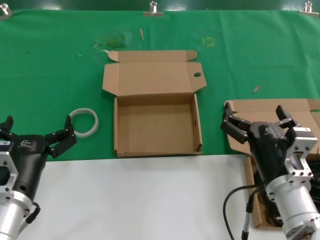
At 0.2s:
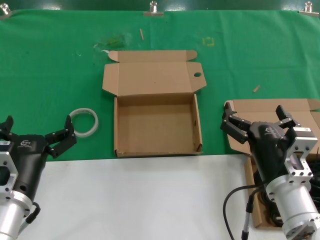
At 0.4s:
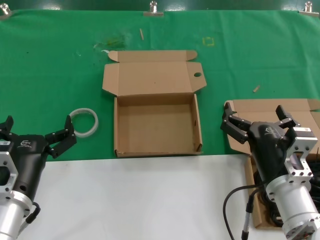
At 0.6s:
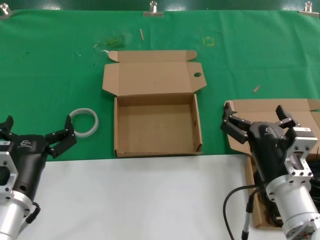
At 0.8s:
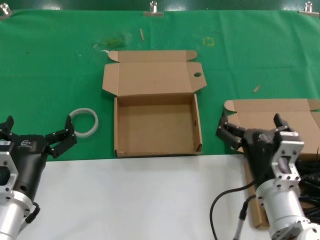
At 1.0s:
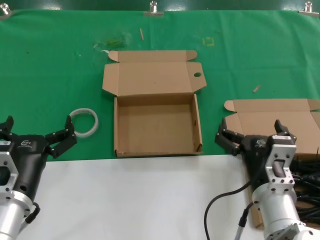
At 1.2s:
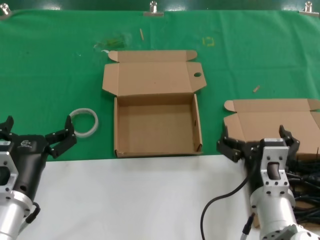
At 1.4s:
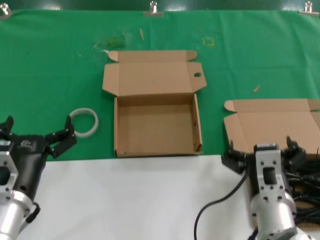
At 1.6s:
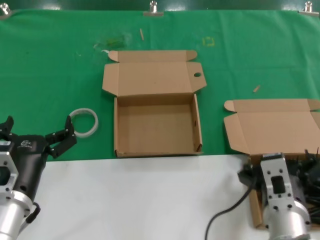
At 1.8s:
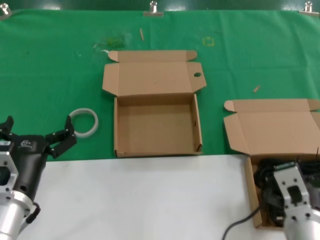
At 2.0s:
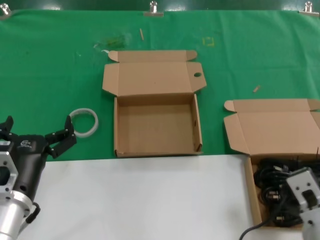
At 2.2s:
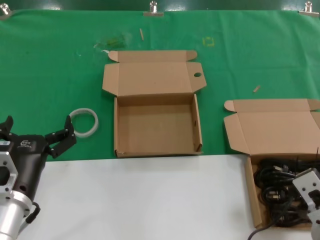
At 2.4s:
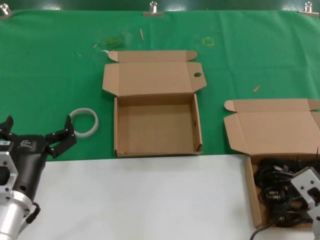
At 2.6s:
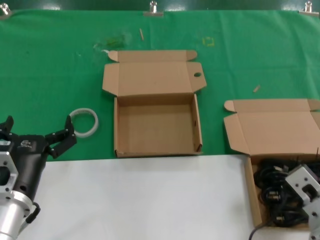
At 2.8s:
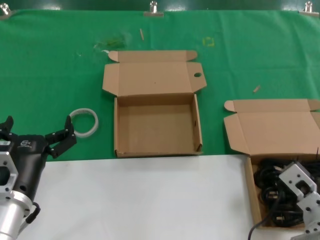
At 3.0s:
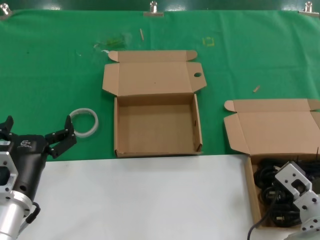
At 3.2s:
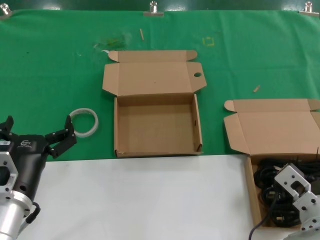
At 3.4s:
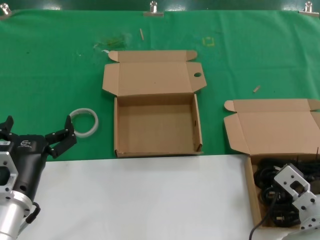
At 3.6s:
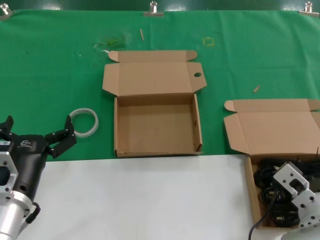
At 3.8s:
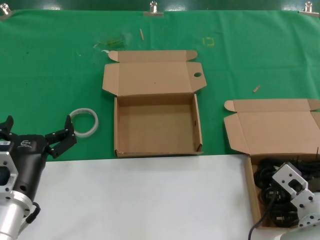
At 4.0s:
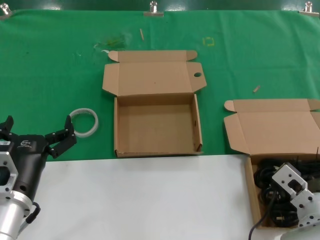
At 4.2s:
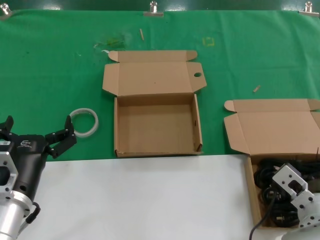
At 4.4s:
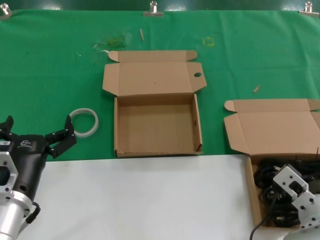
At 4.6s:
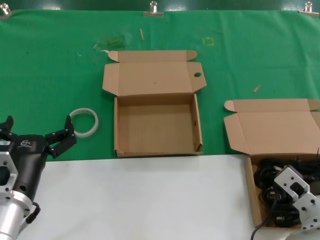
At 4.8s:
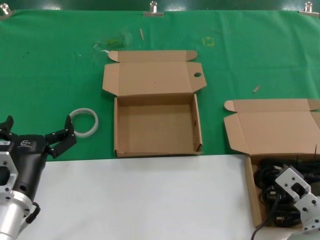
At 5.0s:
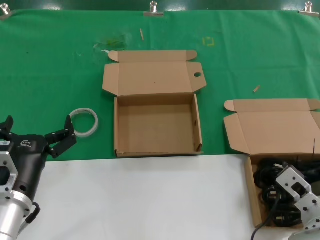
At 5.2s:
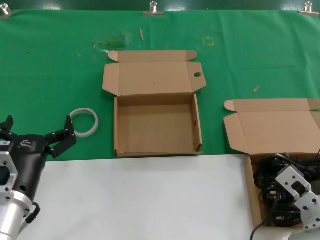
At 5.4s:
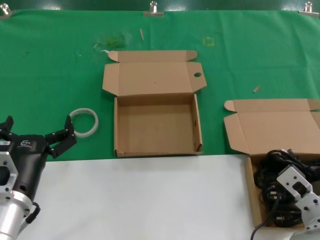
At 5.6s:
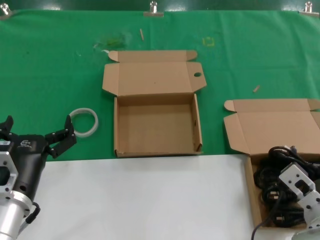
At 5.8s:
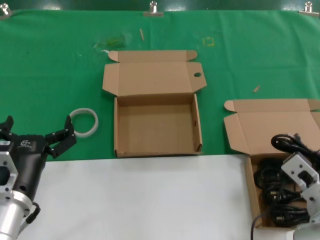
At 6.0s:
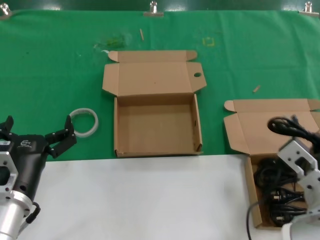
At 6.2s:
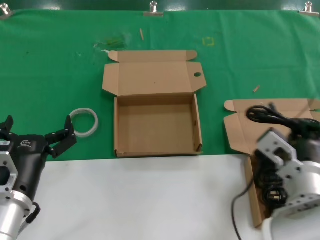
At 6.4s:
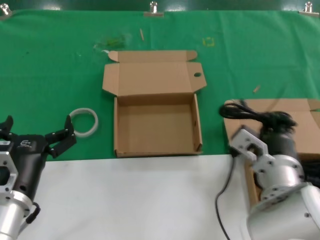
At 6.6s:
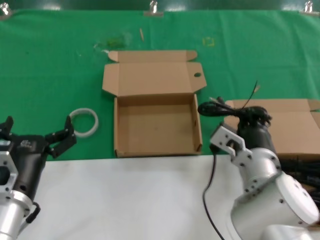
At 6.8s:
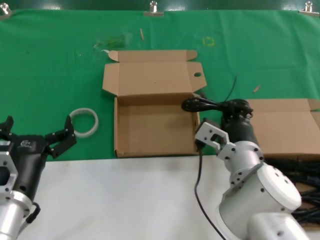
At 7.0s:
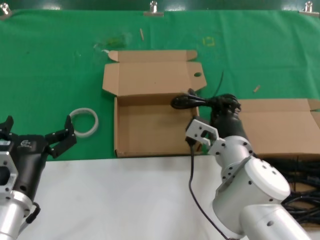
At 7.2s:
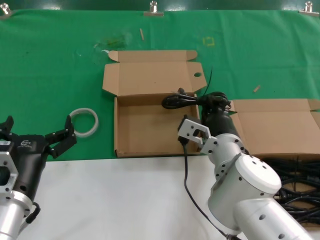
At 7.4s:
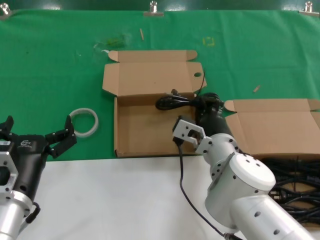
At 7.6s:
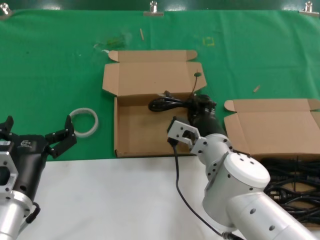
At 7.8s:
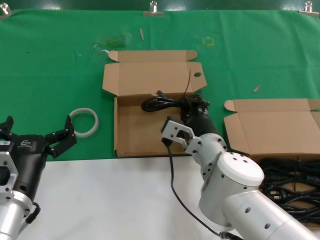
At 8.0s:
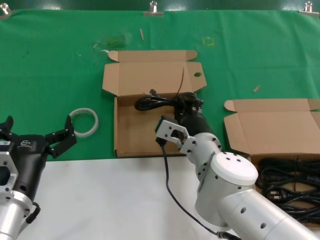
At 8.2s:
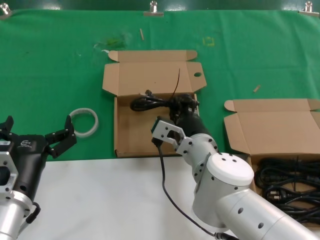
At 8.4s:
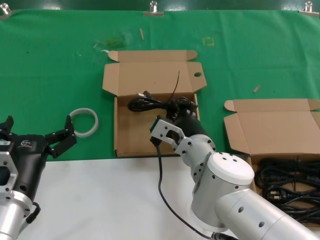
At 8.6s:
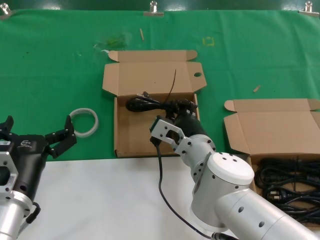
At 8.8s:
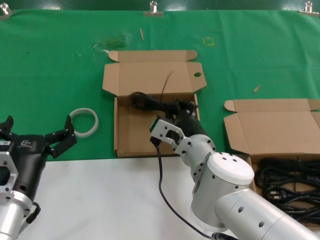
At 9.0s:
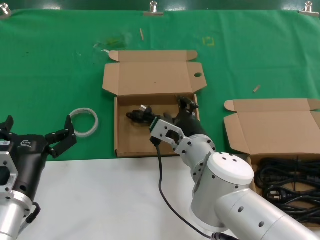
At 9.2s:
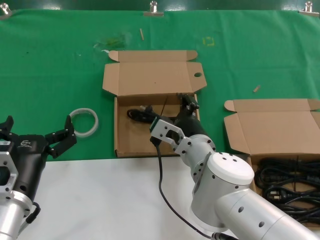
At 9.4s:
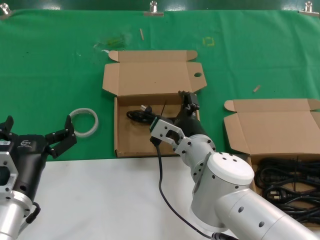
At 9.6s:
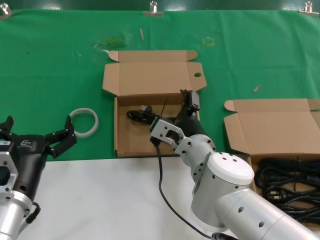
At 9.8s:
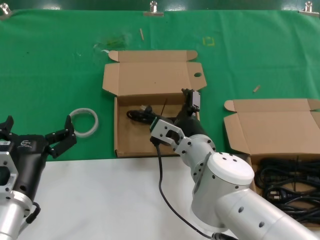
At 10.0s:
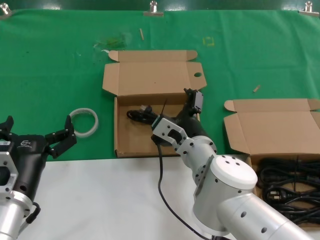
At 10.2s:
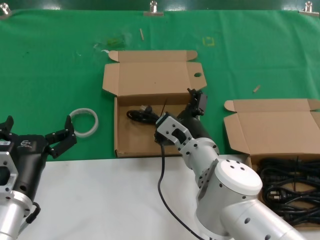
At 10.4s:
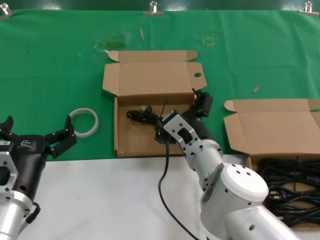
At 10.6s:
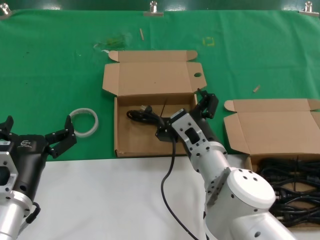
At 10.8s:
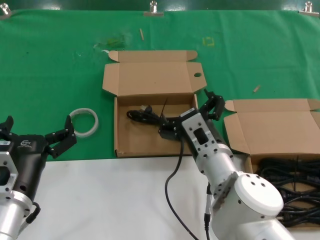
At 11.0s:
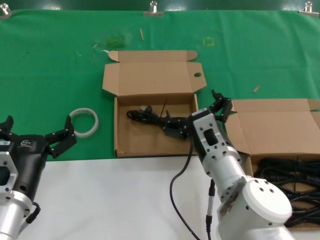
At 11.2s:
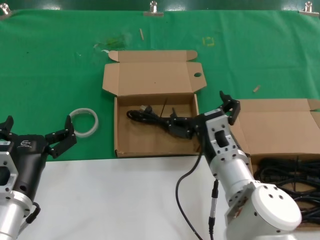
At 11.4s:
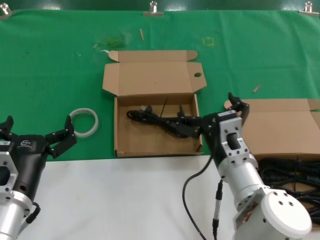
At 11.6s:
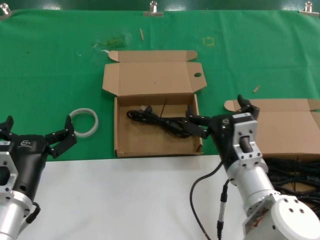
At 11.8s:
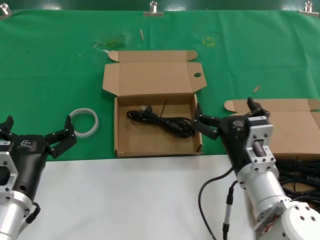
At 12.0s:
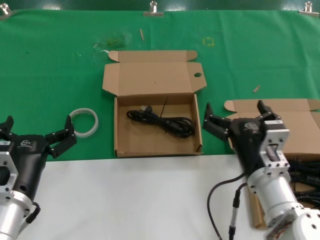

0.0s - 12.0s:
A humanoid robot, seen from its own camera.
Task of the whole recording: take the parts from the box containing them and put them into an empty box.
Step, 0.0s - 5.2s: Grasp the data cable.
Step, 5.4s - 8.8s: Place the data cable in the another box.
0.0s - 1.6s: The right hand shifts by approximately 5 cm.
1.6s - 3.0s: The right hand travels to the right by about 5 cm.
3.0s - 4.4s: The hands make only small movements.
4.4s - 6.0s: The right hand moves upward, some 5 cm.
6.0s - 7.6s: The right hand heads forward and to the left, covering approximately 20 cm.
7.6s - 9.0s: The hands move only a little.
9.0s - 10.4s: There are only small adjustments of the hands.
10.4s - 12.0s: The right hand goes roughly 10 cm to the right and backward.

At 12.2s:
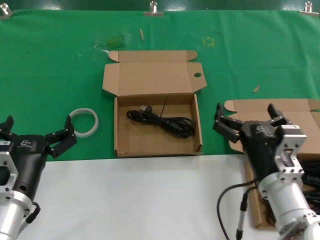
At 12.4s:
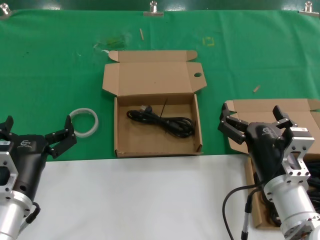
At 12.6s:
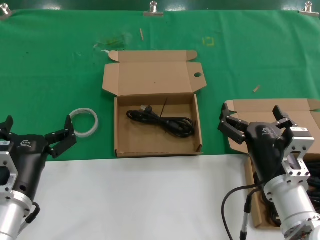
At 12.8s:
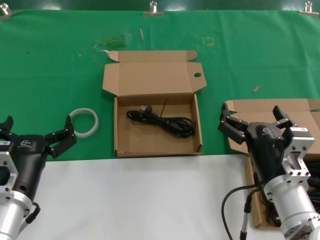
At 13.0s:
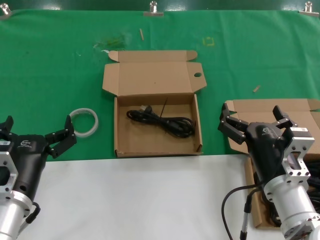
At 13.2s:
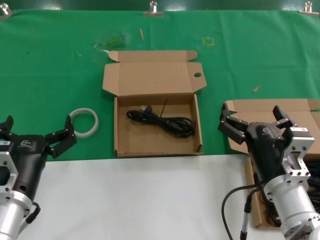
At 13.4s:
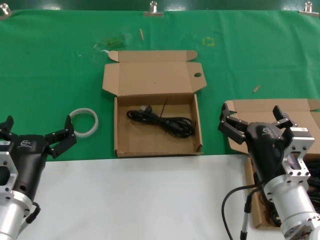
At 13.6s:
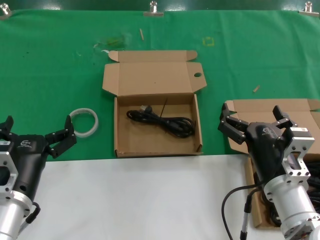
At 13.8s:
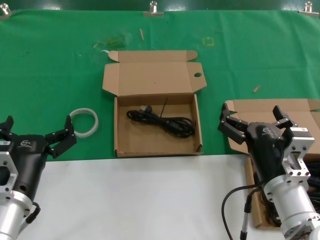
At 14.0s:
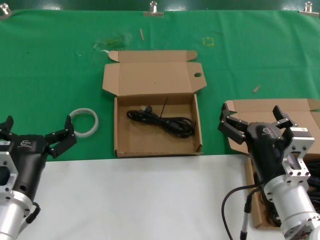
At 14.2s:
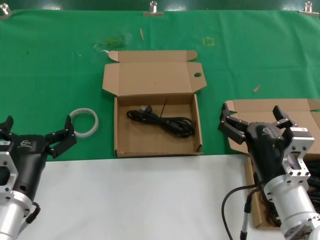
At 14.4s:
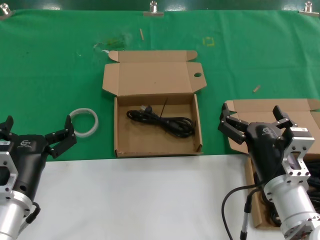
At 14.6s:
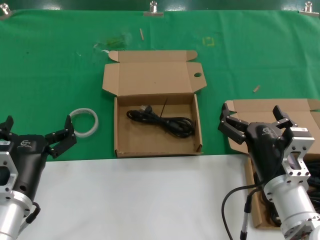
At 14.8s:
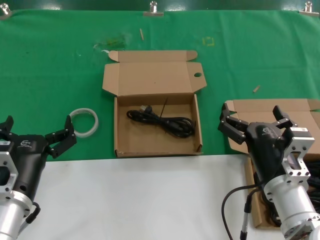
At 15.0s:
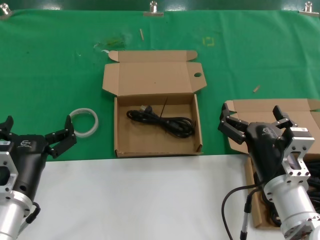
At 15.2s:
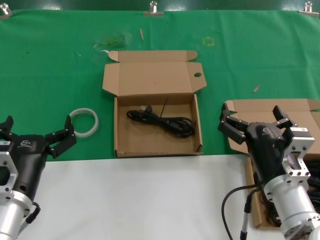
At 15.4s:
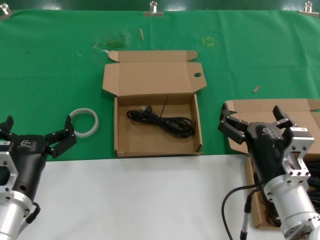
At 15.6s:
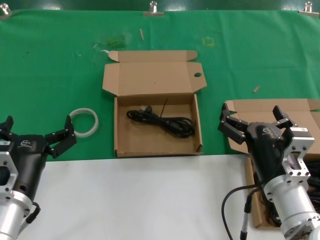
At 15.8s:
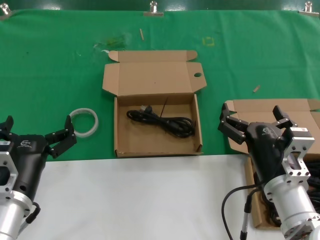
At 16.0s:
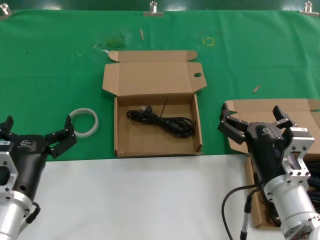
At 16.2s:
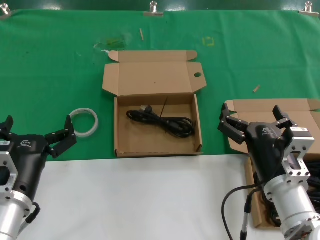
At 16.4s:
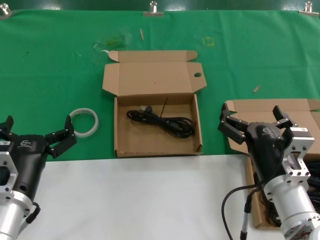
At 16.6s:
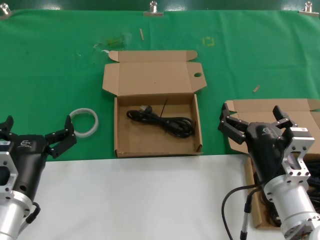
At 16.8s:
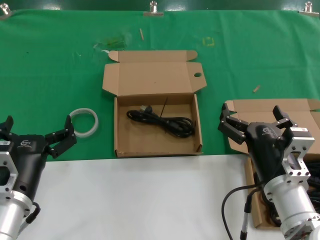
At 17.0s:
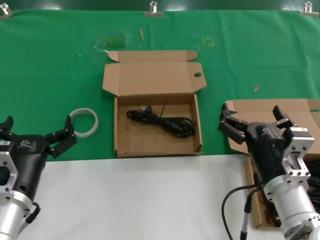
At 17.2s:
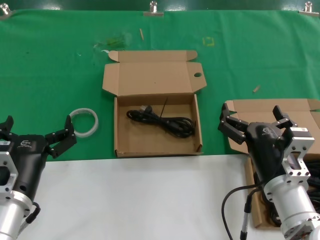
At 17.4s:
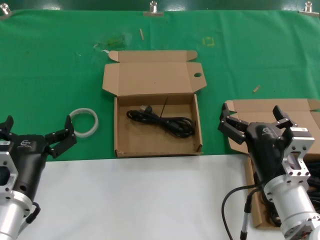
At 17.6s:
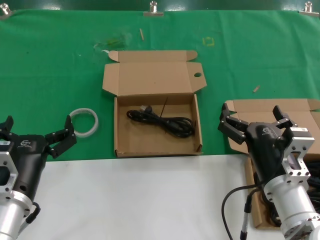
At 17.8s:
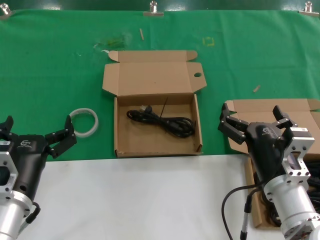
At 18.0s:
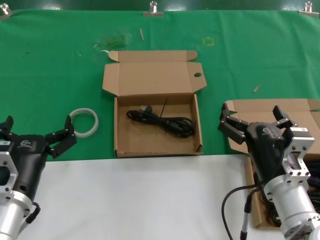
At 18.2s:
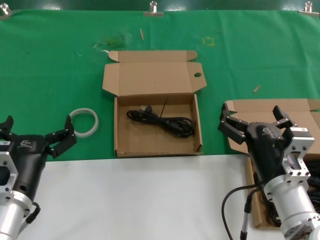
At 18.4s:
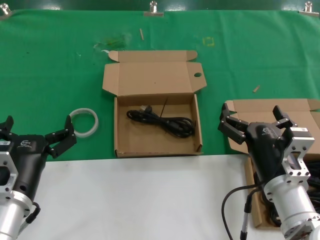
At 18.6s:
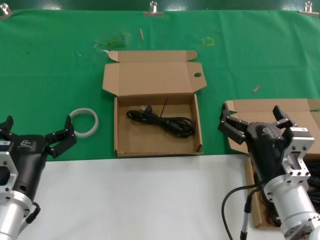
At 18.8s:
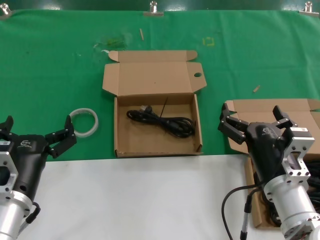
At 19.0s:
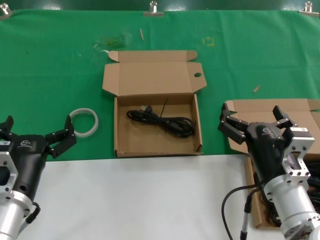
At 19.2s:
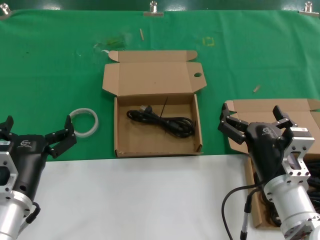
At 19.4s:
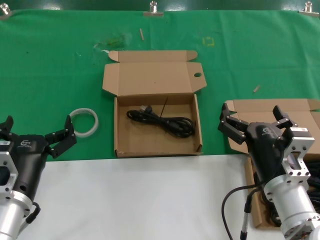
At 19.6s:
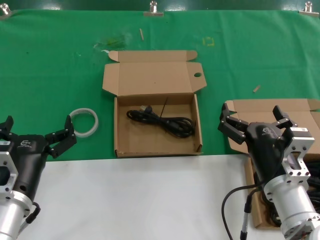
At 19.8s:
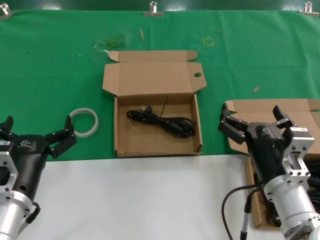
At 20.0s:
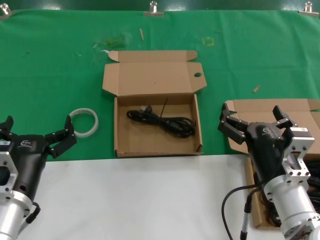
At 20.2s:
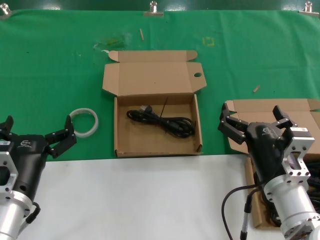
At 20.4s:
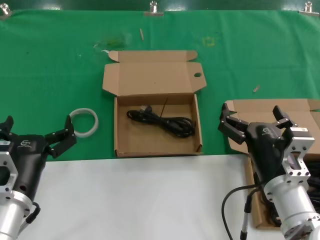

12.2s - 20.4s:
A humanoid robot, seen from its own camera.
Task of the whole recording: take the parts from the box containing them and put them into an empty box.
12.2s - 20.4s: Both hands stay put.
